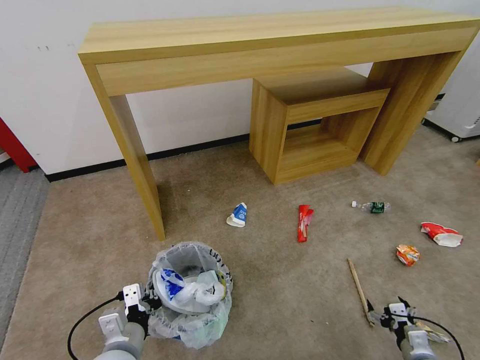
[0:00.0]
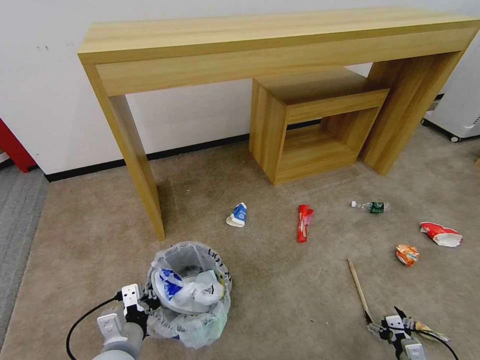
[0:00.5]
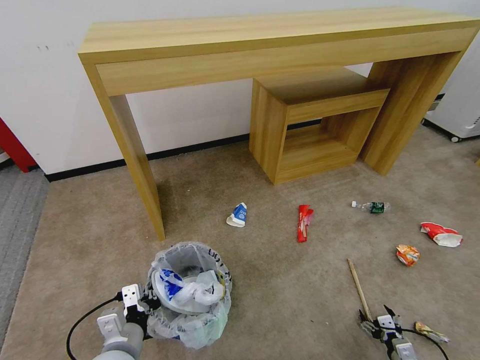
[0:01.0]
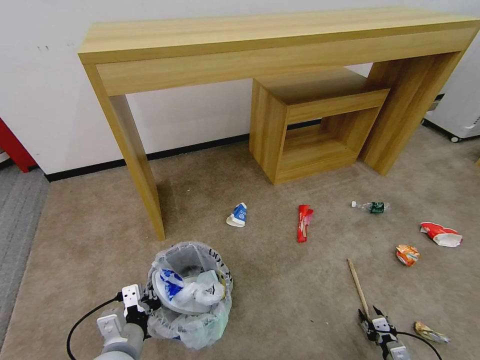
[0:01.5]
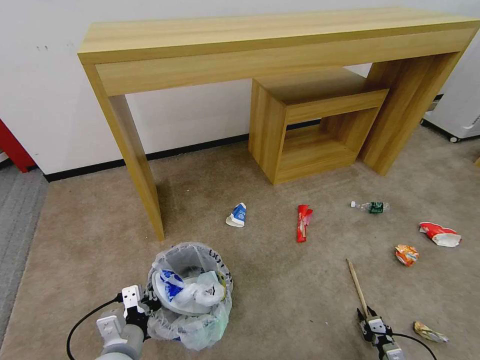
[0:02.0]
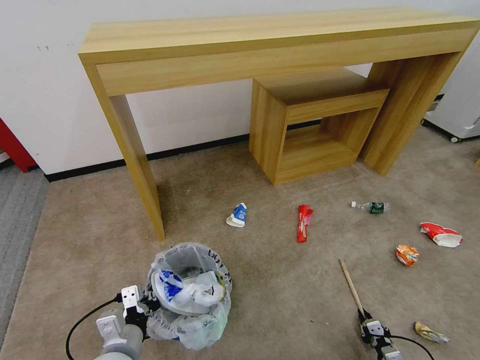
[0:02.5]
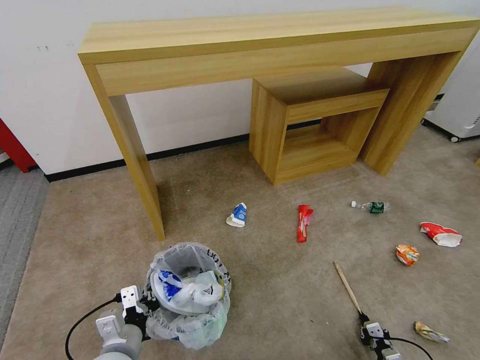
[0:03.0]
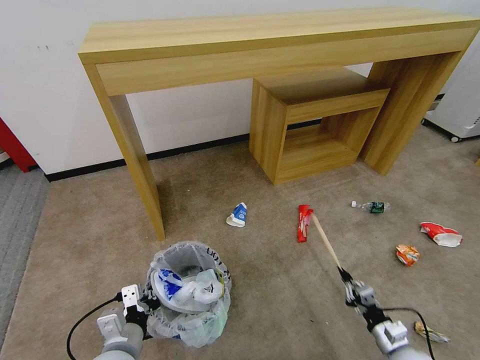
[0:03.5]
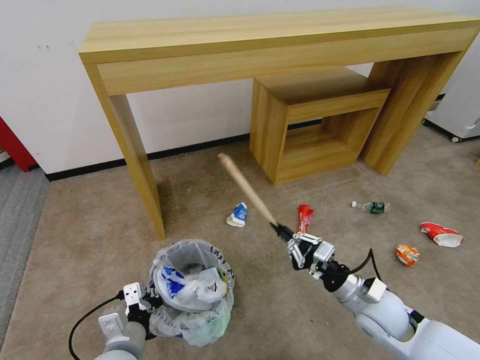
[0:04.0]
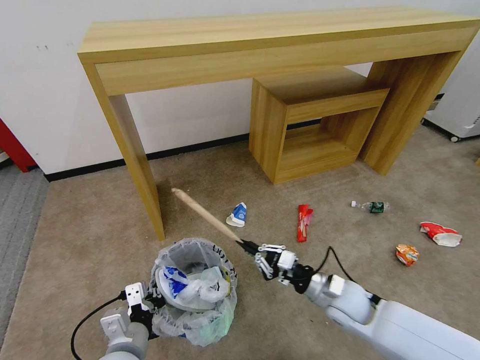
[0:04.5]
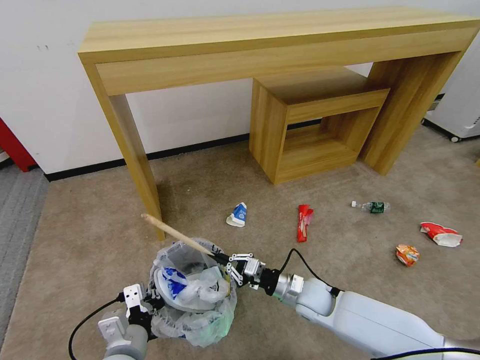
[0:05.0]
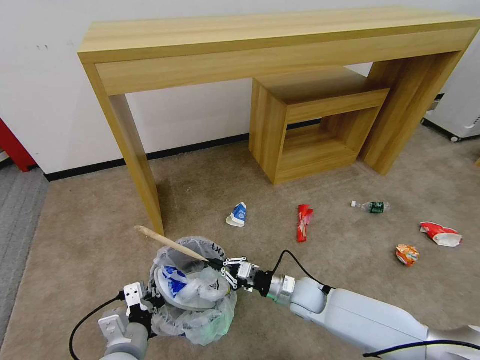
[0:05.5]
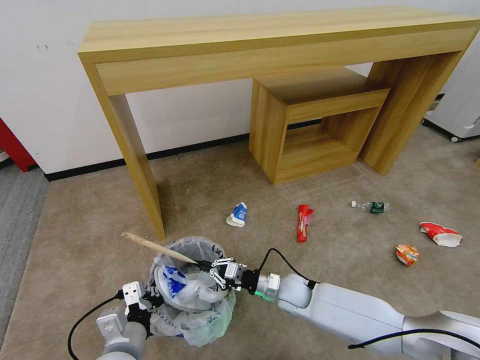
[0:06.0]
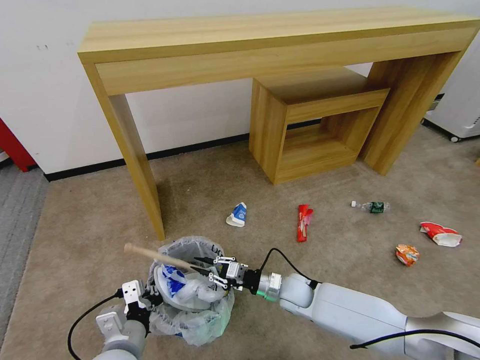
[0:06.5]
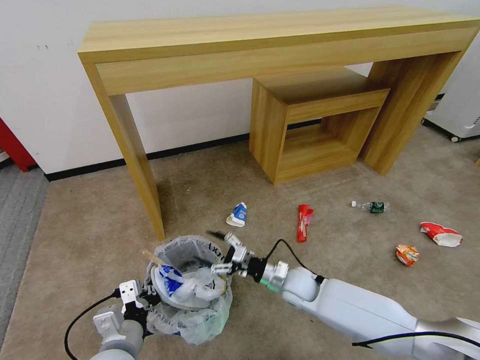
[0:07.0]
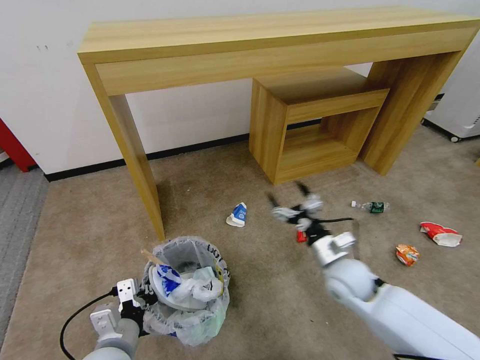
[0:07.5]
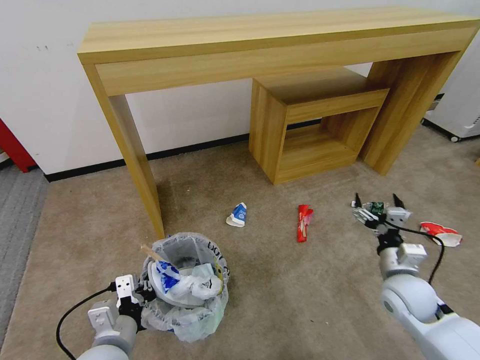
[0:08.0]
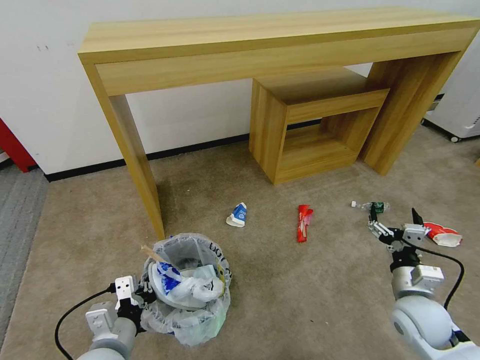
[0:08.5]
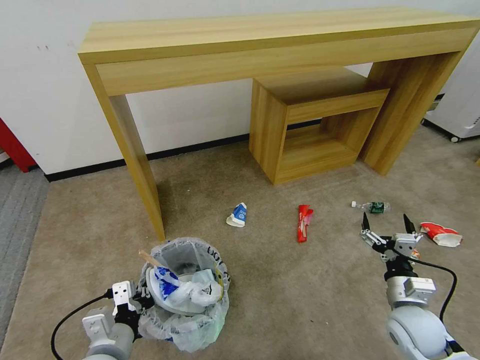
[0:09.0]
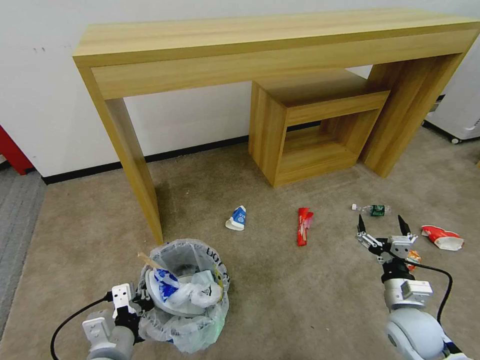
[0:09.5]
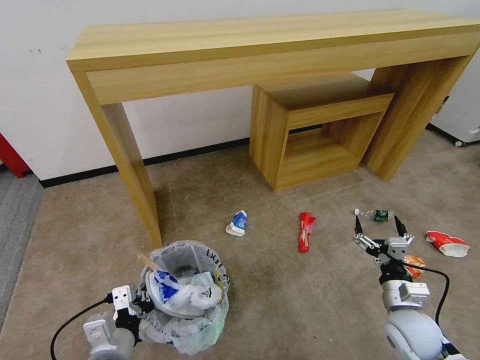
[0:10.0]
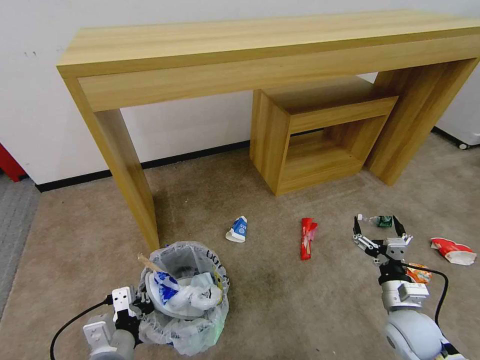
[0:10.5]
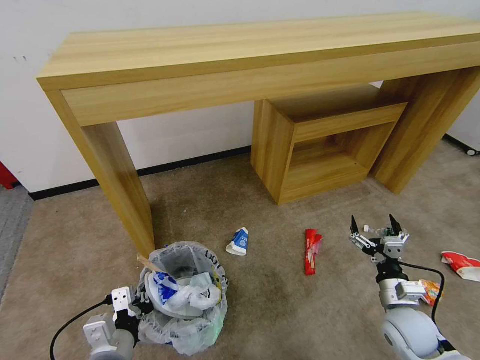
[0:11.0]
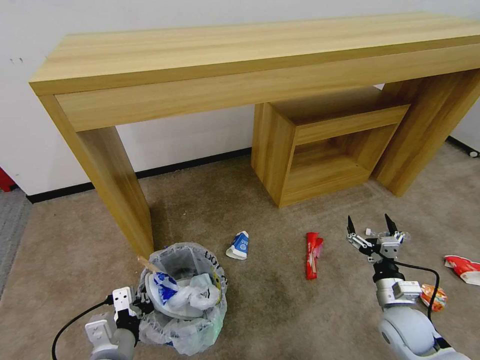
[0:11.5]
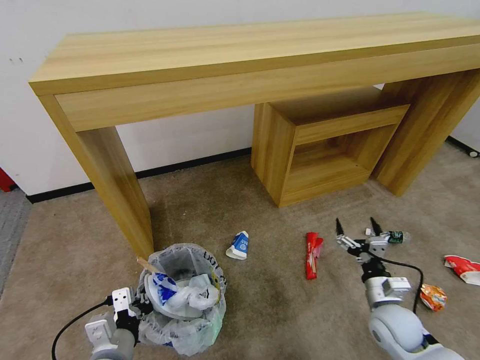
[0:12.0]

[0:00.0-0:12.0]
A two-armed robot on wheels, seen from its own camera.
Task of the whole recording: Pick up the trash bin and place the garbage on the floor into it.
0.0 to 2.0 s: The right gripper goes approximately 10 cm downward, and closes up.
2.0 to 4.0 s: The right gripper shifts roughly 35 cm upward, to the left and forward.
4.0 to 6.0 s: The right gripper is displaced to the left, downward and forward by approximately 20 cm.
6.0 to 8.0 s: The right gripper goes about 25 cm to the right and upward, and opens up.
8.0 to 10.0 s: The right gripper heads backward, covering some 5 cm.

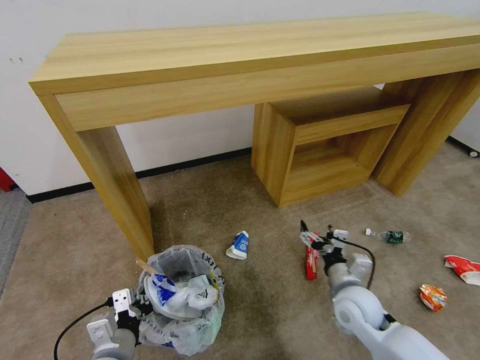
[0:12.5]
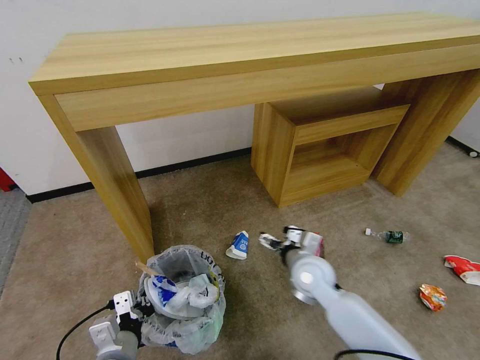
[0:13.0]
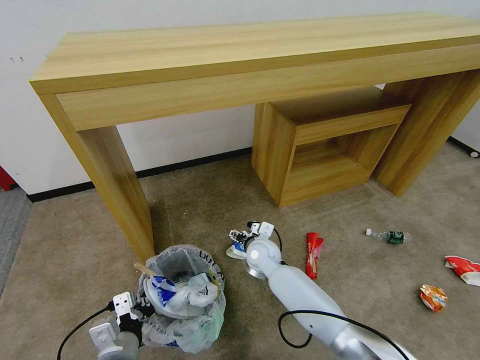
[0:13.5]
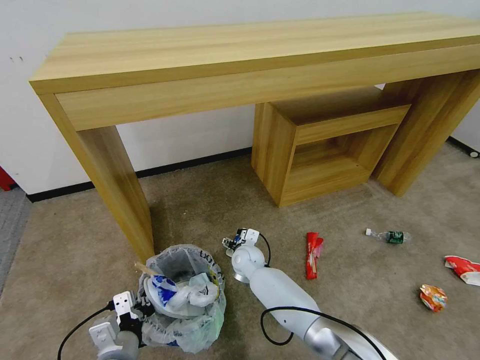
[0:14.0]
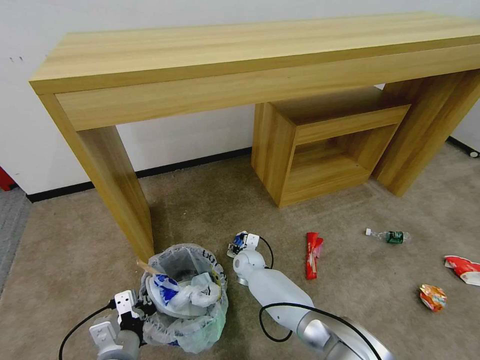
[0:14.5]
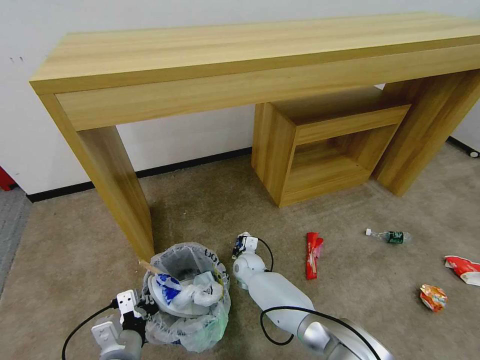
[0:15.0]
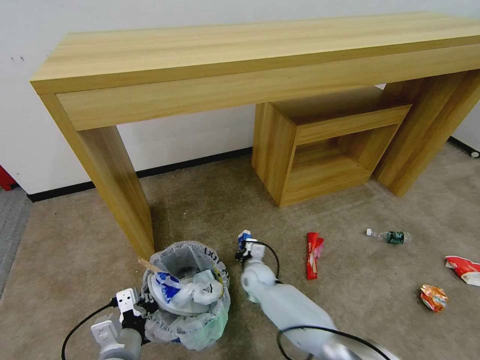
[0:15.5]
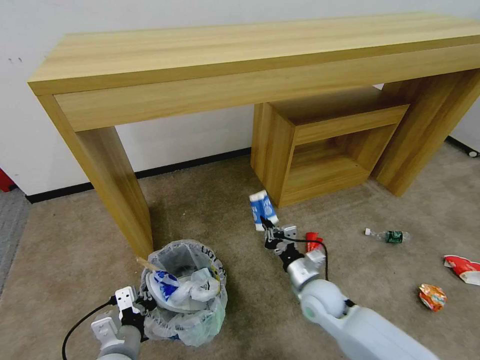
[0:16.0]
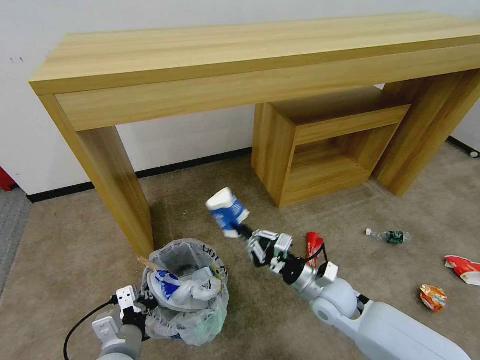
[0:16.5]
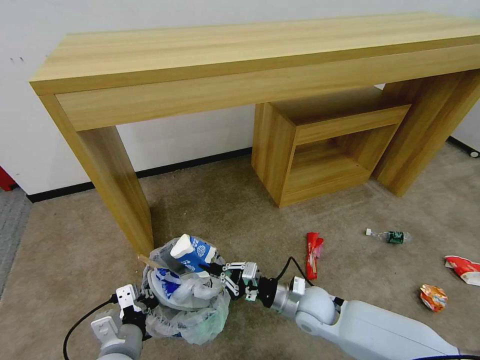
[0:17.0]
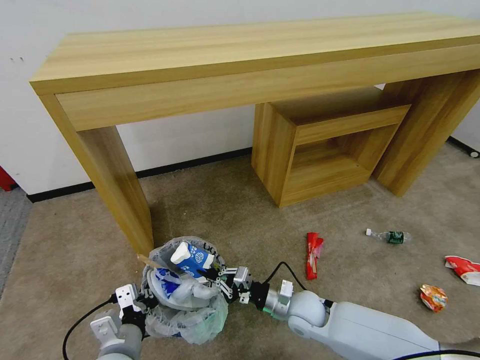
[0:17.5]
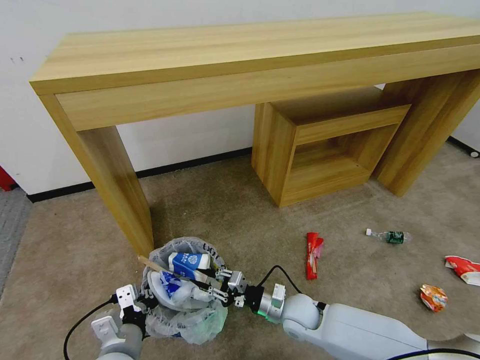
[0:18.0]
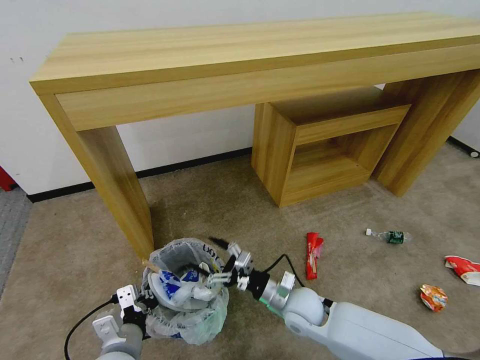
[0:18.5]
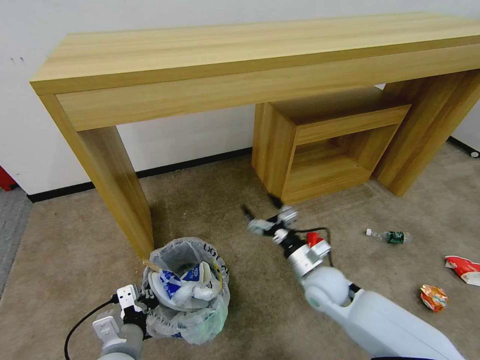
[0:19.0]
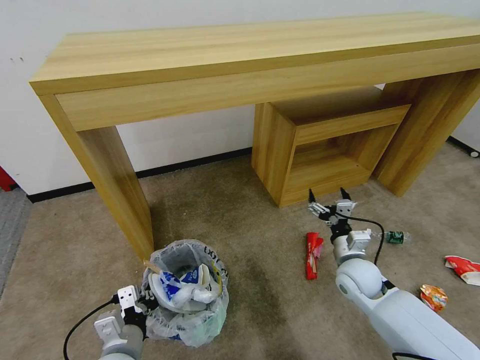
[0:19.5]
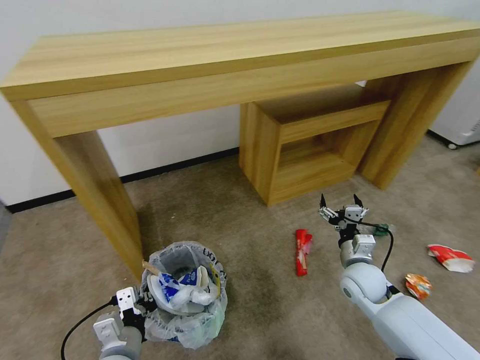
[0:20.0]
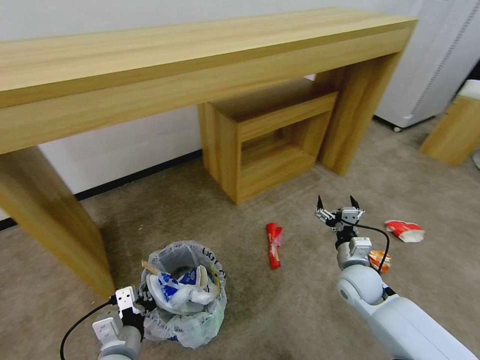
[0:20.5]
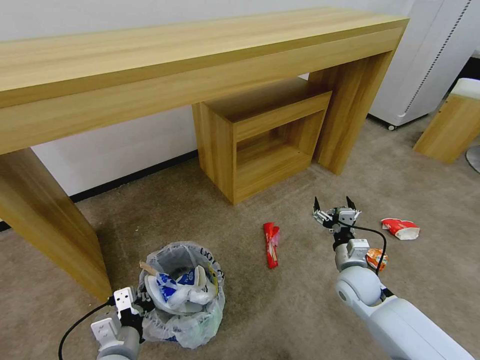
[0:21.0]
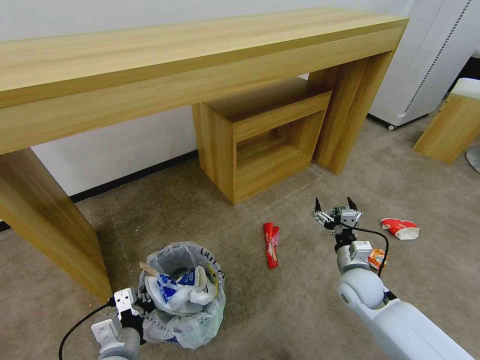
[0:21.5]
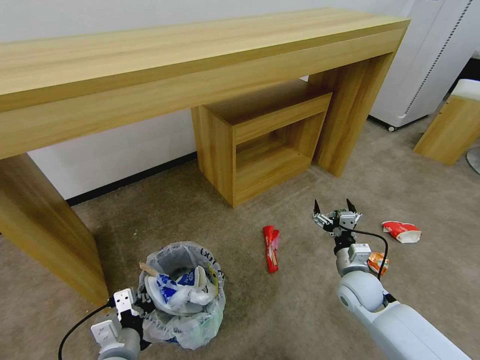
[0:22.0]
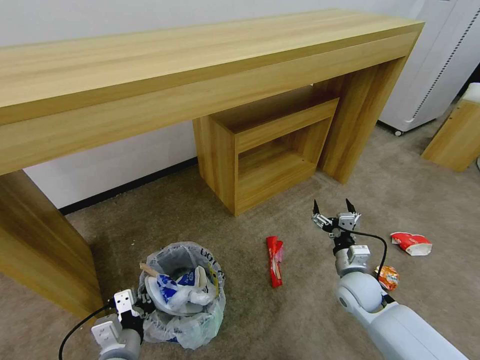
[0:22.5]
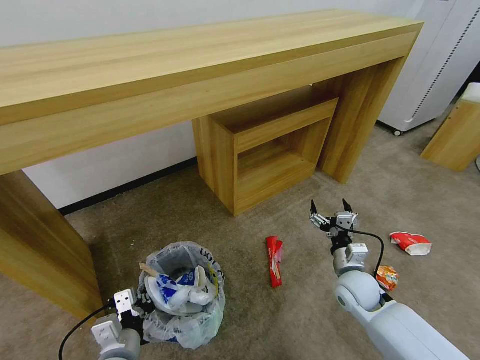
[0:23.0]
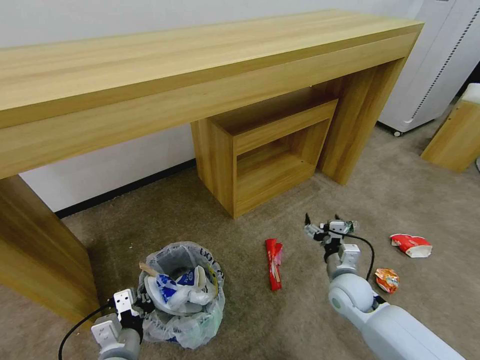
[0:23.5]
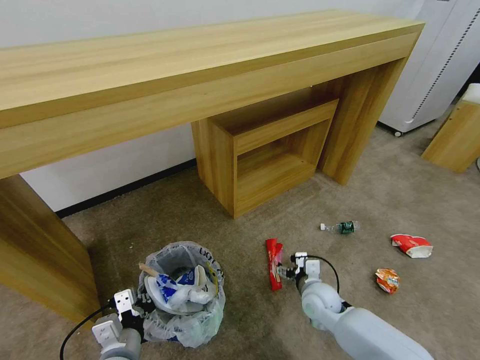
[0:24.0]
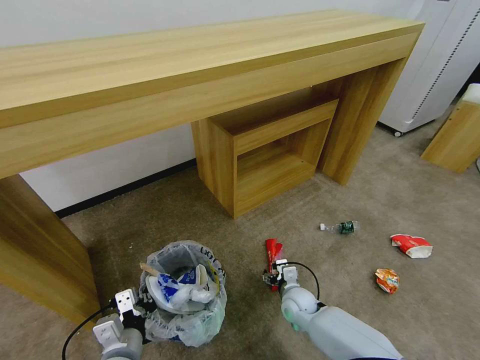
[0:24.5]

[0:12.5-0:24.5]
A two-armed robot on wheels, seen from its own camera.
Task of the whole recording: Pick up the trash bin and place the garbage on the floor into it.
12.5 to 14.5 s: The right gripper travels to the left, forward and downward by roughly 30 cm.
14.5 to 16.5 s: The right gripper travels to the right, backward and upward by roughly 25 cm, and closes.
16.5 to 18.5 s: The right gripper shifts some 5 cm to the left, and opens.
18.5 to 20.5 s: The right gripper travels to the right by roughly 15 cm.
22.5 to 24.5 s: The right gripper goes approximately 15 cm to the left and downward.

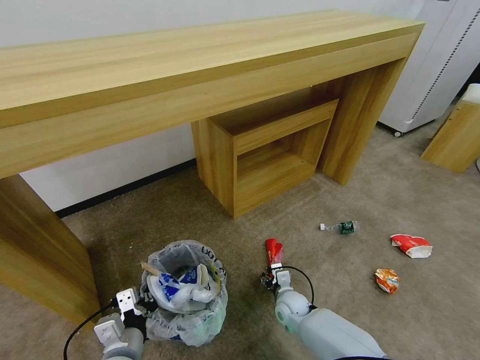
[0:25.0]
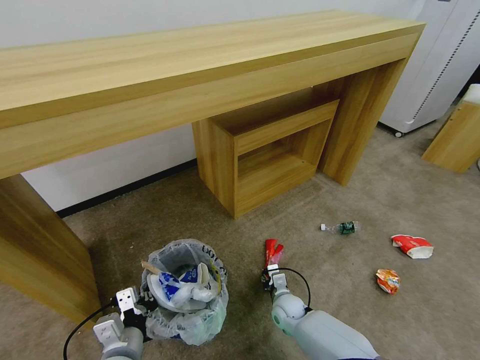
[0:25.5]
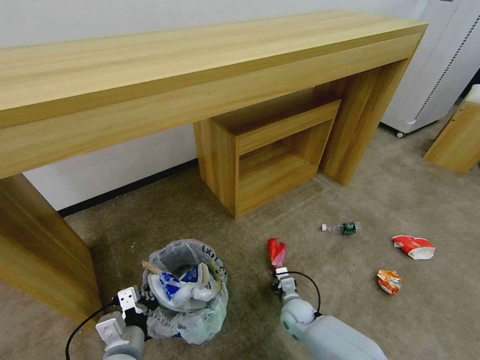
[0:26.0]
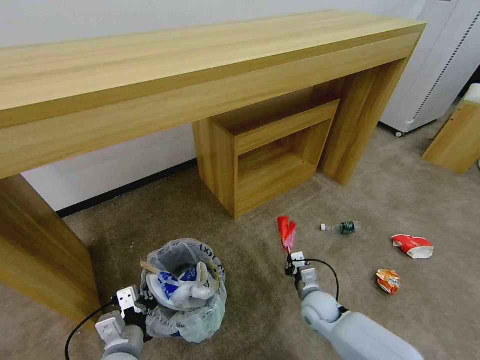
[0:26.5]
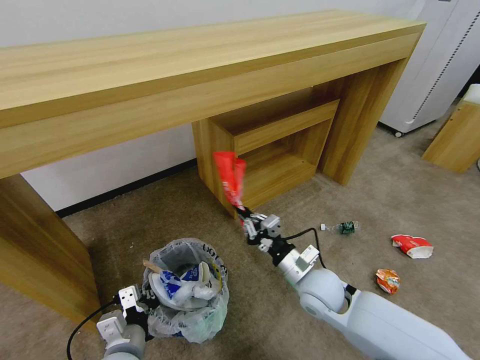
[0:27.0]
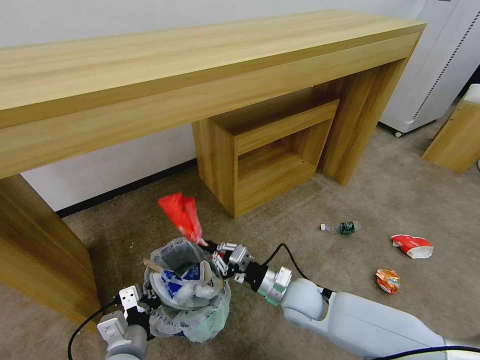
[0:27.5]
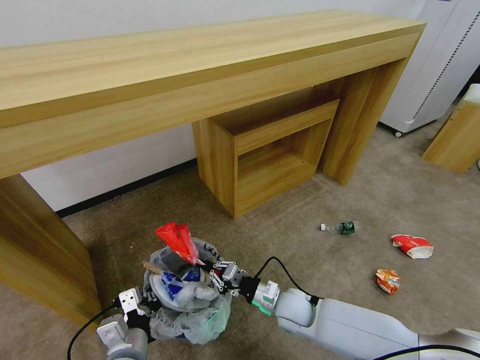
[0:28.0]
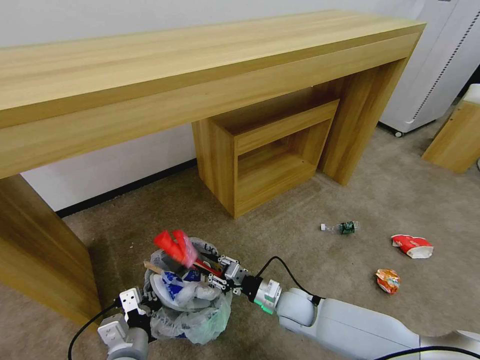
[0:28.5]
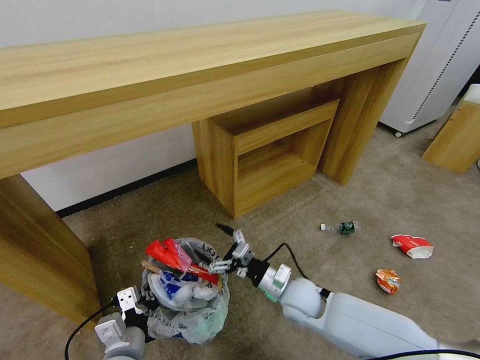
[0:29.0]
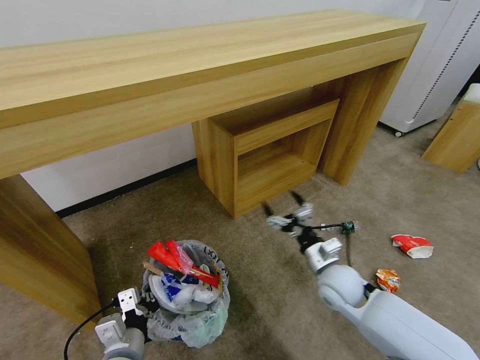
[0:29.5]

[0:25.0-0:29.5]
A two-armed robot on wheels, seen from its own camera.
Task of the whole recording: Pick up the trash bin and place the garbage on the floor into it.
25.0 to 27.0 s: The right gripper goes some 20 cm upward, and closes.
27.0 to 29.5 s: The right gripper travels downward and back again, some 10 cm each way, and opens its fingers.
